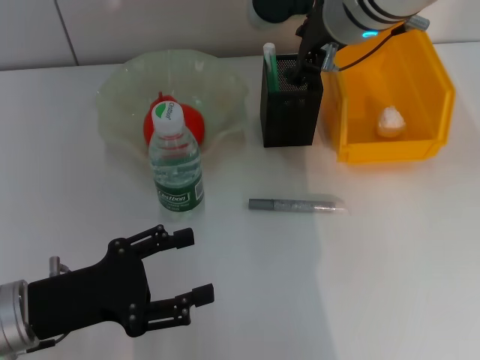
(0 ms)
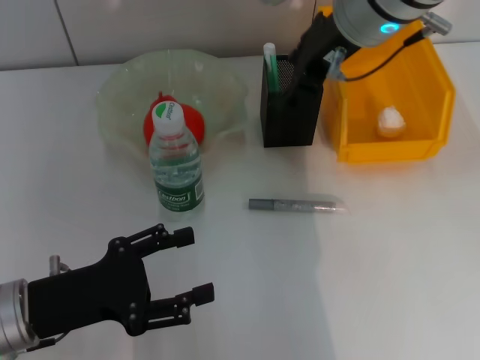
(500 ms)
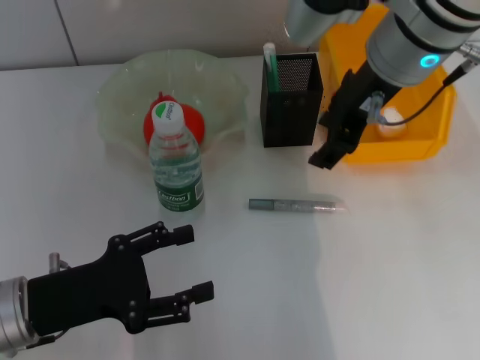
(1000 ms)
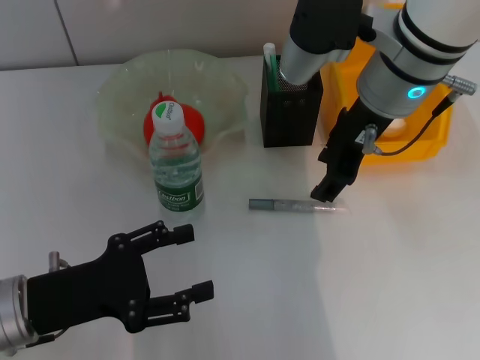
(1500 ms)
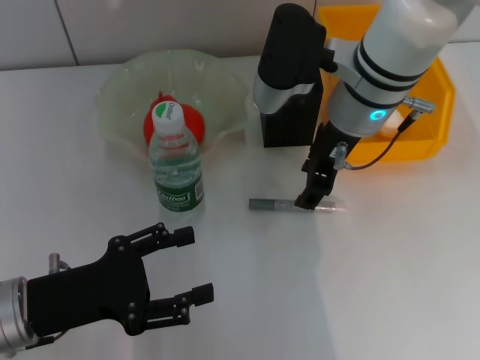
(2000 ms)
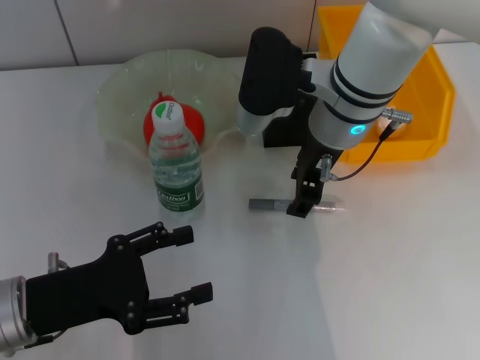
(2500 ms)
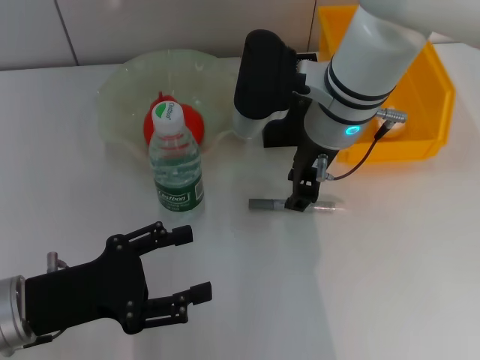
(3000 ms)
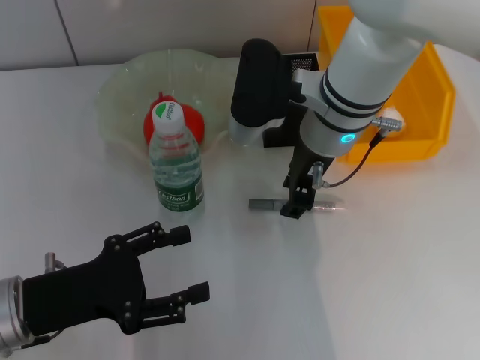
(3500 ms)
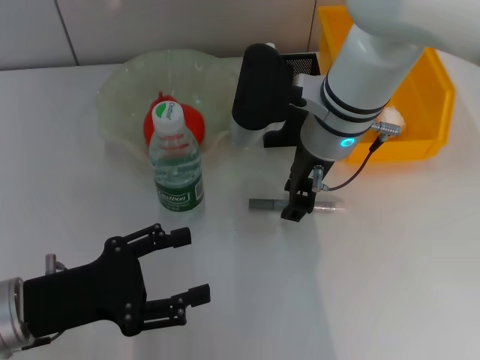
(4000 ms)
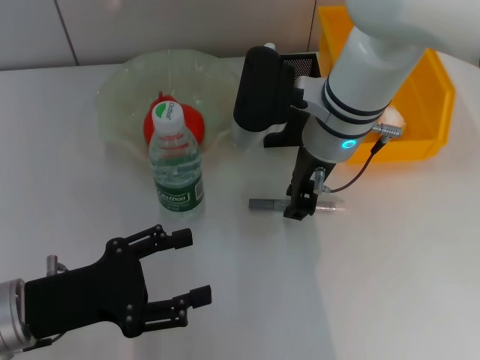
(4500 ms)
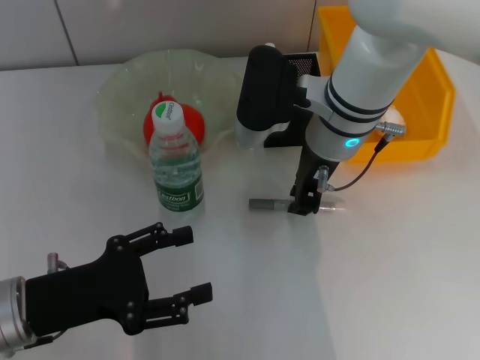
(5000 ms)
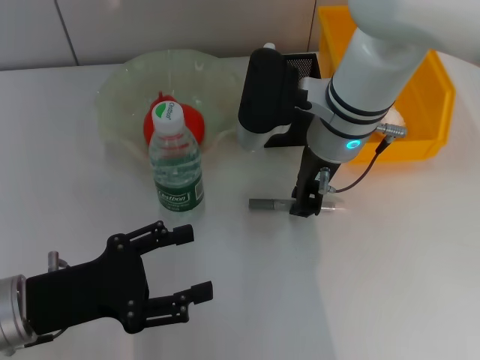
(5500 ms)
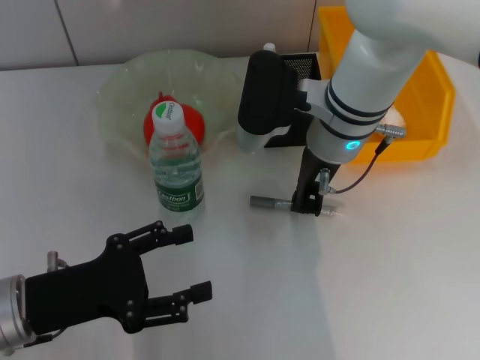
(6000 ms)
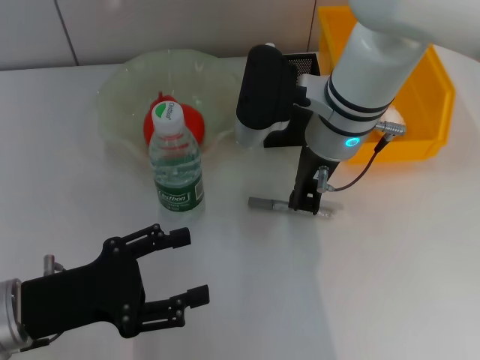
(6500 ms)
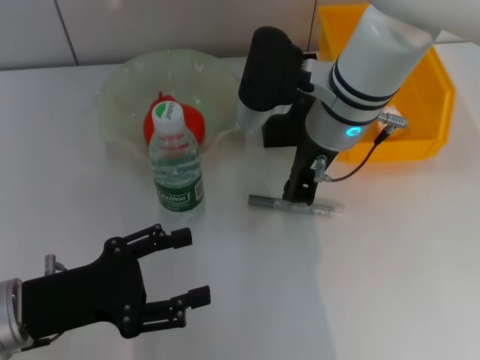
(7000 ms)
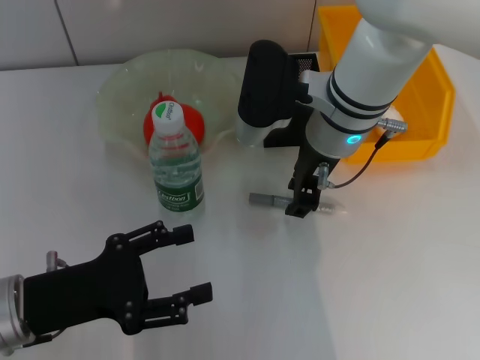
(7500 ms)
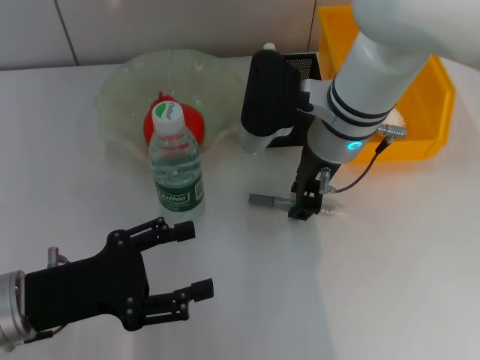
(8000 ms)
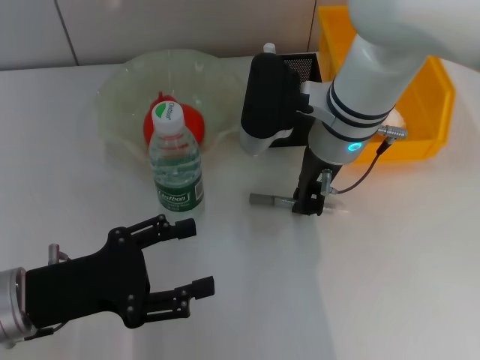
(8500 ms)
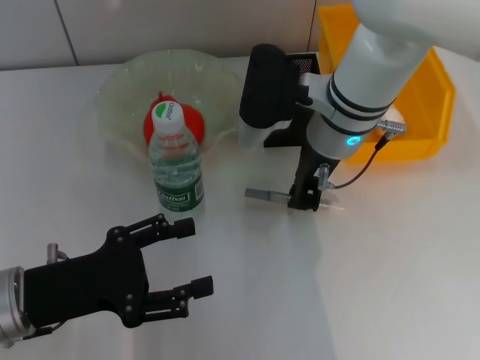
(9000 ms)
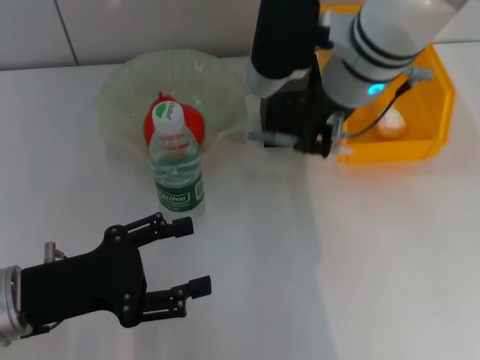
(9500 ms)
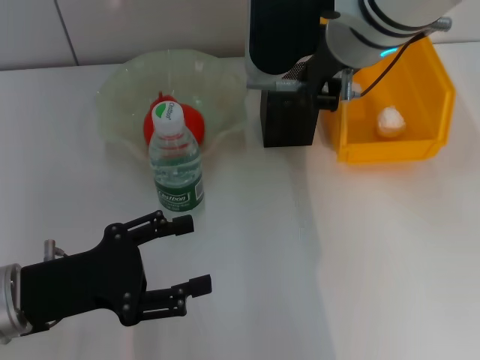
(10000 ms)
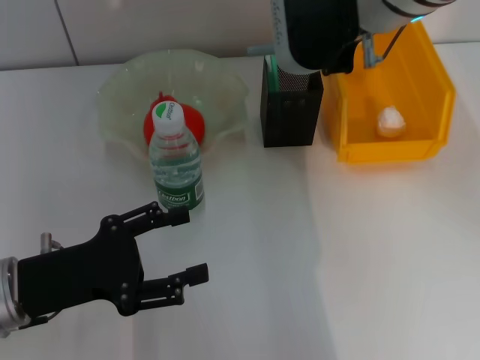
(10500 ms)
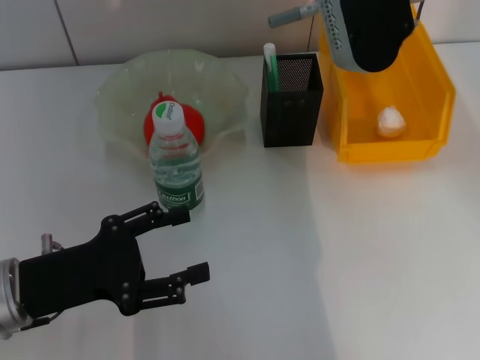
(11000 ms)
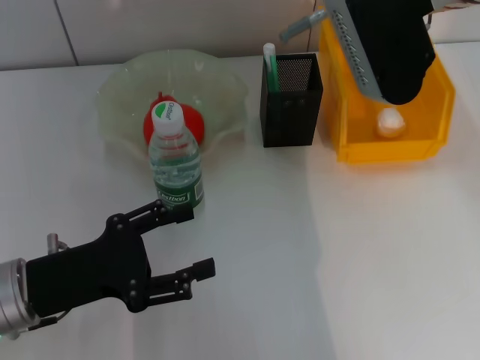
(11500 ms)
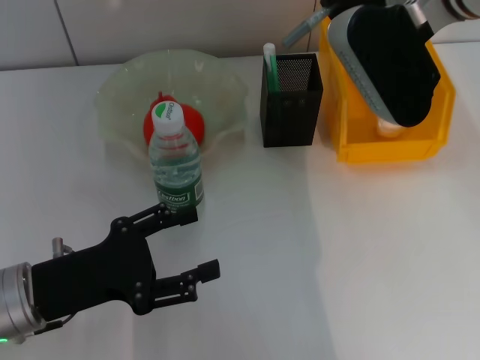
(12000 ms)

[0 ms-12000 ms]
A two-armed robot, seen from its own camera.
Step, 0 ms to 8500 ms: Grab the gray glue with the right hand.
0 ms to 2000 ms: The right gripper is displaced downward by some 5 cm.
2000 ms to 4000 ms: The grippers move only a little.
4000 ms to 6000 ms: The right gripper closes up.
6000 ms to 8000 ms: The grippers stay close to where they were, moving slightly.
8000 ms to 10000 ms: The right gripper travels upward by approximately 10 cm.
10000 ms to 12000 ms: The right gripper goes about 5 cm to the right.

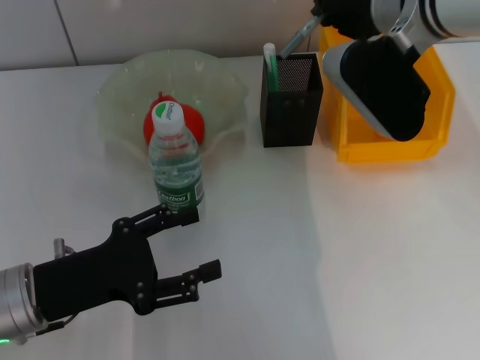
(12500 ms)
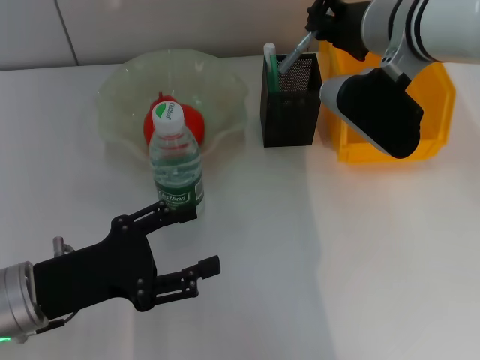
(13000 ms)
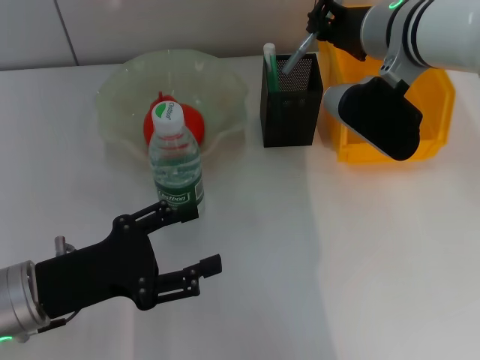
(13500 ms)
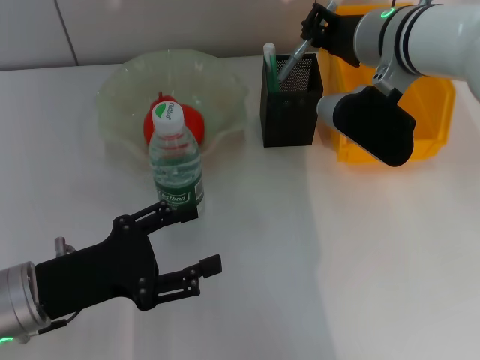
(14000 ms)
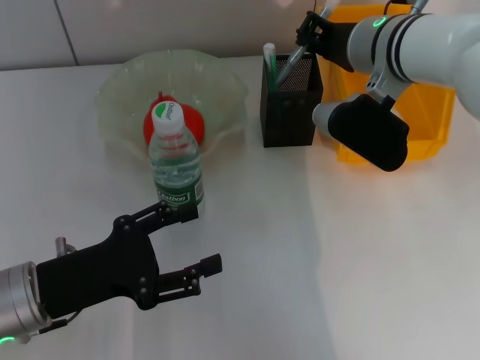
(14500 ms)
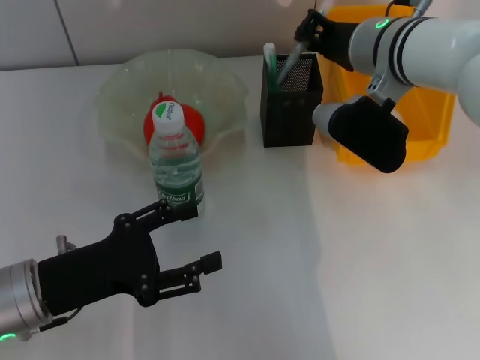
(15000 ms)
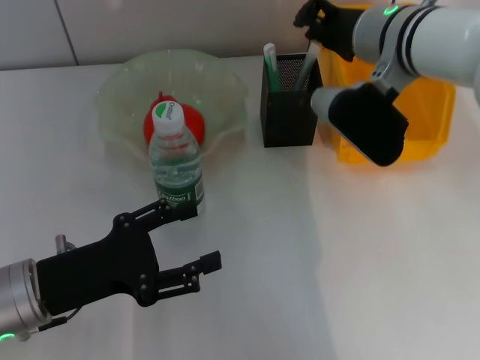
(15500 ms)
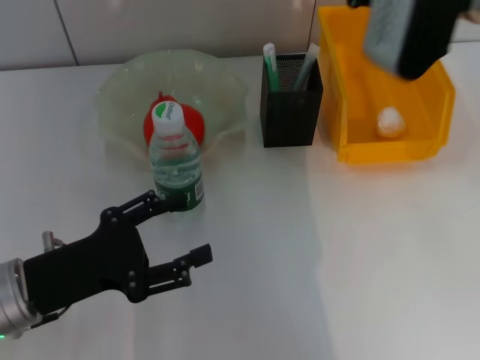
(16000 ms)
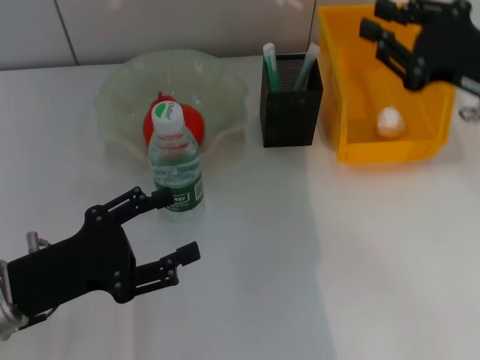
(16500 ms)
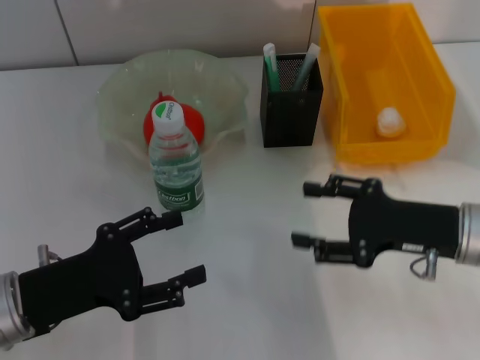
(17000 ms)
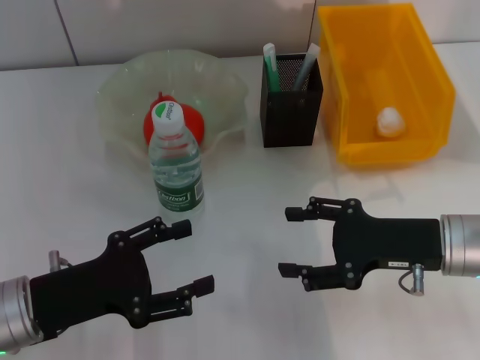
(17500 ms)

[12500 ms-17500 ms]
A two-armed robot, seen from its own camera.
Step, 12500 ms to 15000 ms: Place the gray glue into the pen holder with the right hand.
12500 ms to 15000 ms: The right gripper shifts approximately 5 cm downward.
15000 ms to 17500 ms: The right gripper shifts about 20 cm backward, downward and to the right, and opens.

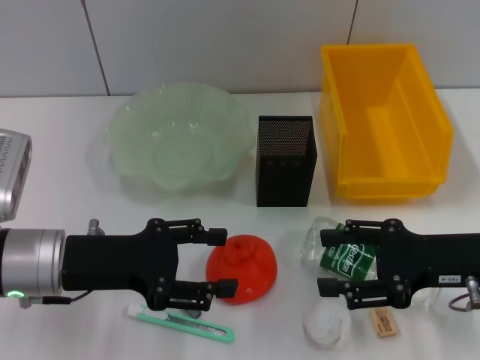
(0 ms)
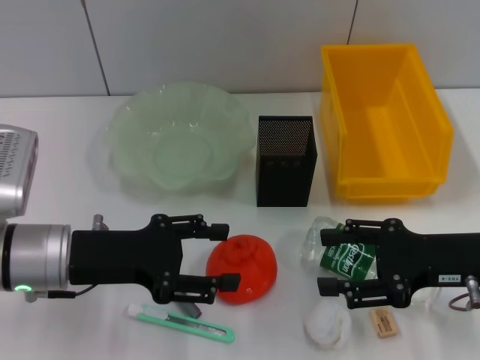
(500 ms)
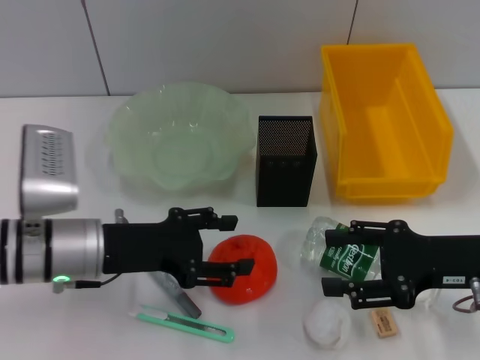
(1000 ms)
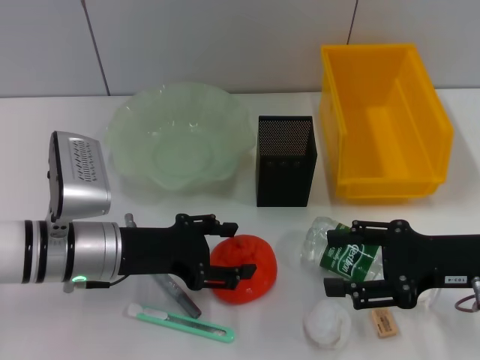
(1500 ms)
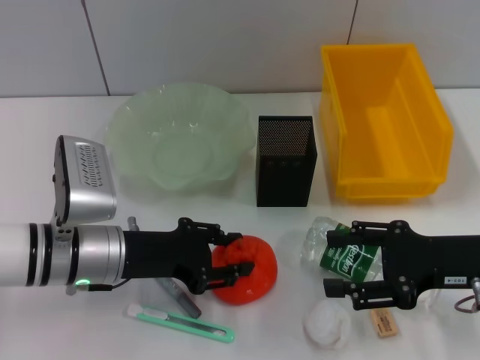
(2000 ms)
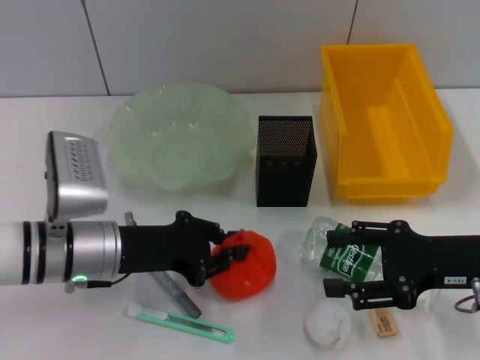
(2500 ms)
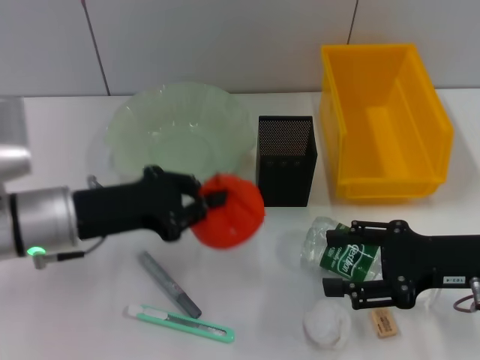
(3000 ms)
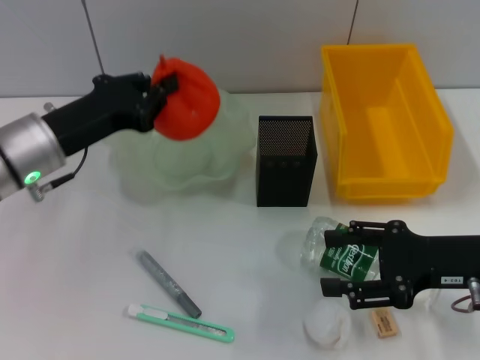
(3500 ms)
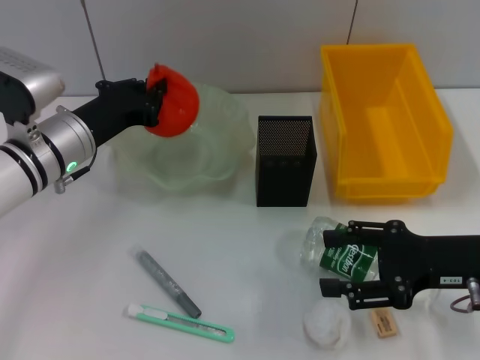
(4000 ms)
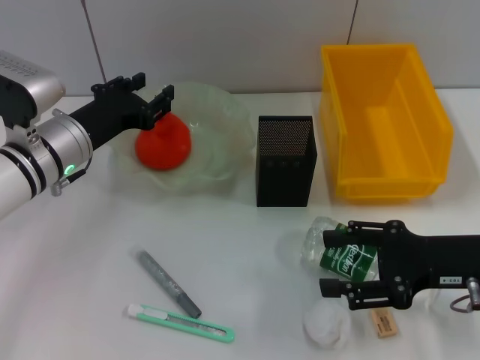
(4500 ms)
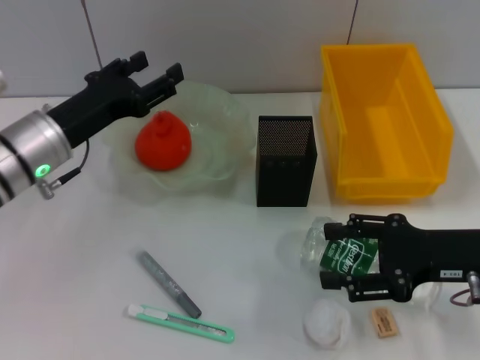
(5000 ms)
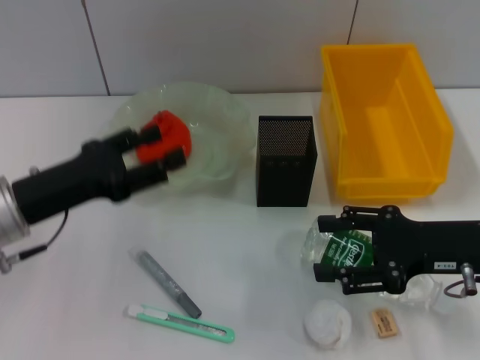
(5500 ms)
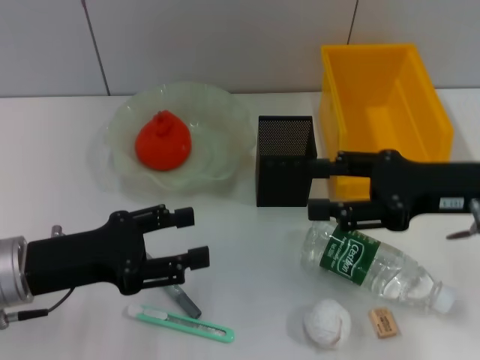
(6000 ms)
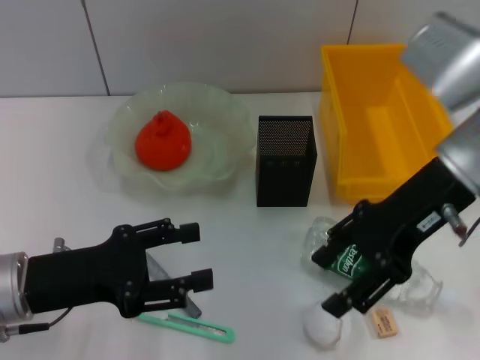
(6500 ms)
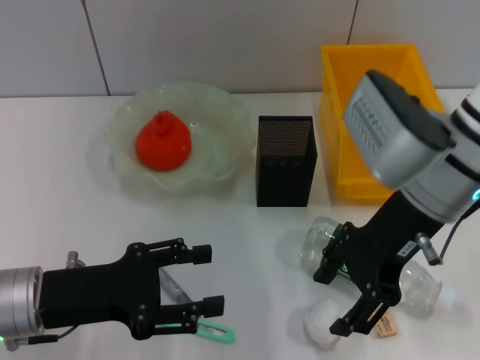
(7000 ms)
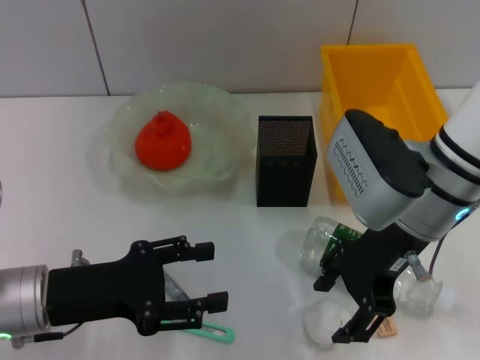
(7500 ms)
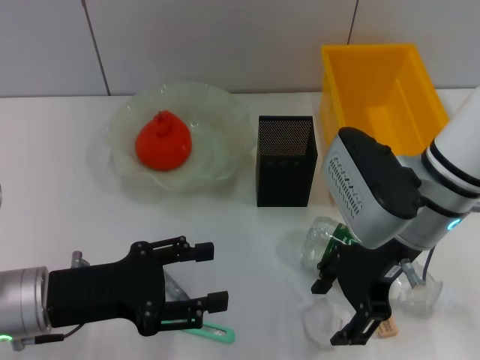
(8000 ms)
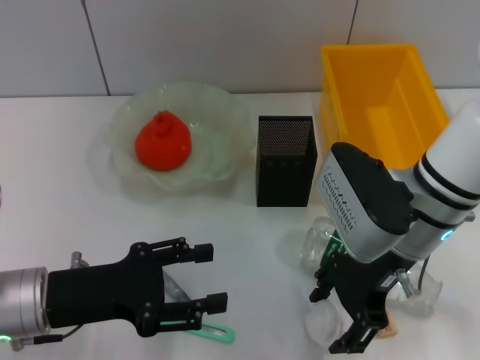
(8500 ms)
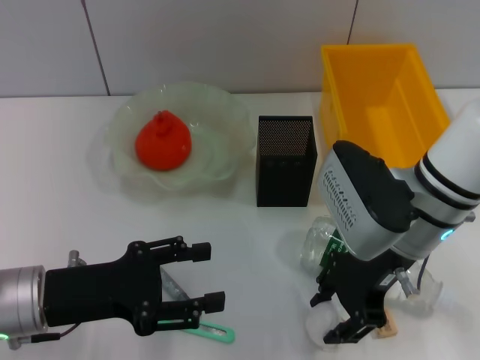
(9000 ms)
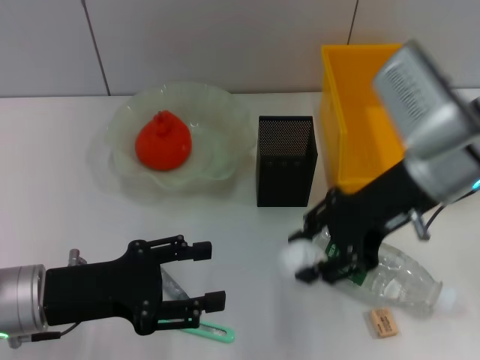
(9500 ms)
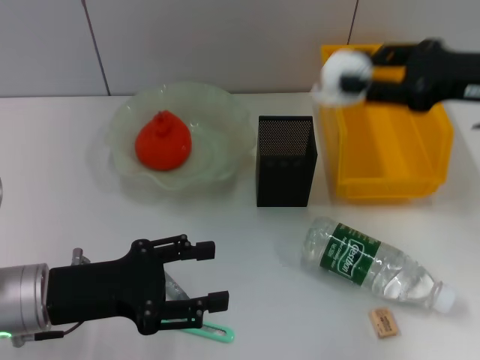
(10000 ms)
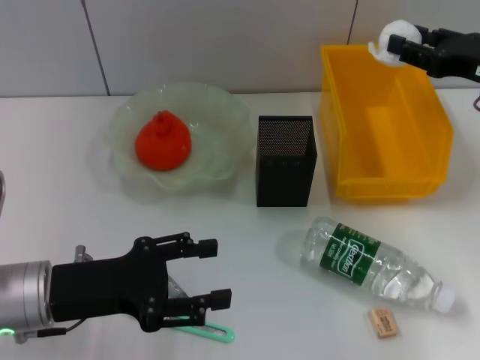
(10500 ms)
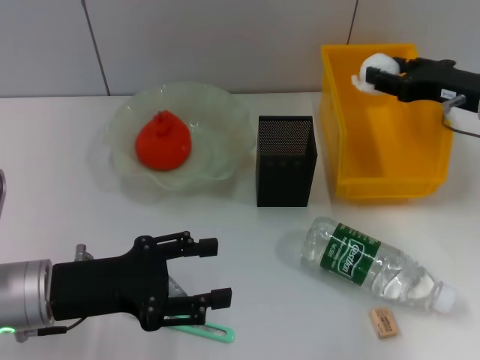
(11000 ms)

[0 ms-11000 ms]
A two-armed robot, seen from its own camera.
Step, 0 ms to 2000 ms: Grab the orange with the left hand.
Step, 2500 ms to 4000 ms: Place the orange into the fruit bowl with the left hand.
Step, 5000 ms to 8500 ms: Grab the paper ball with the right hand.
0 ms to 2000 ms: The left gripper ends up roughly 5 cm from where it was.
2000 ms to 3500 ms: The left gripper goes some 5 cm upward, and closes.
3500 ms to 5500 ms: The left gripper moves backward, roughly 5 cm, and opens its fingers.
5500 ms to 7500 ms: The left gripper ends up approximately 5 cm from where it was, while the right gripper shifts some 15 cm to the left and upward.
7500 ms to 9000 ms: The grippers move only a little.
9000 ms to 11000 ms: The right gripper goes approximately 15 cm to the right and forward.
